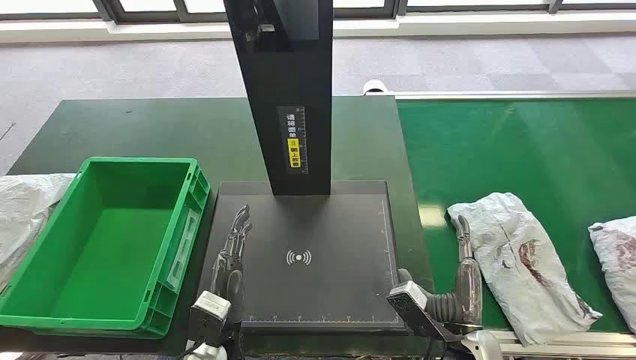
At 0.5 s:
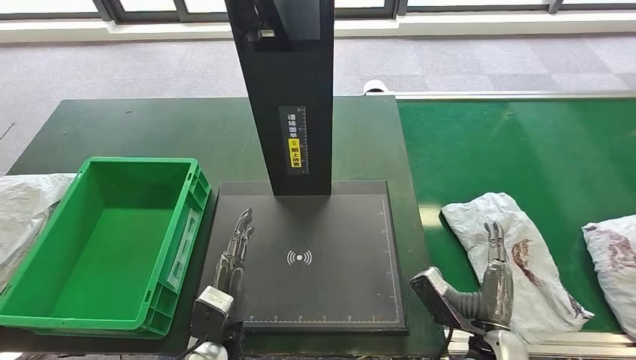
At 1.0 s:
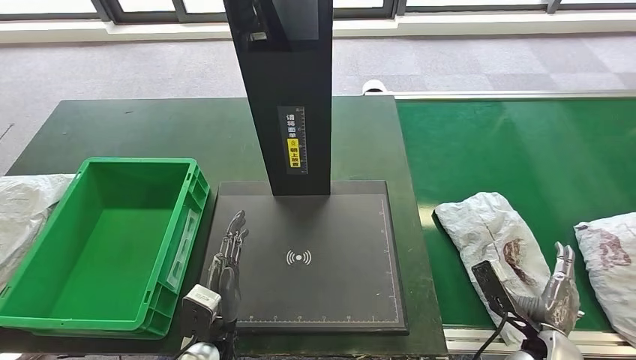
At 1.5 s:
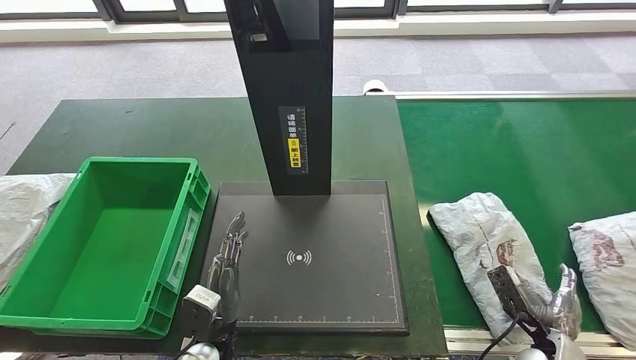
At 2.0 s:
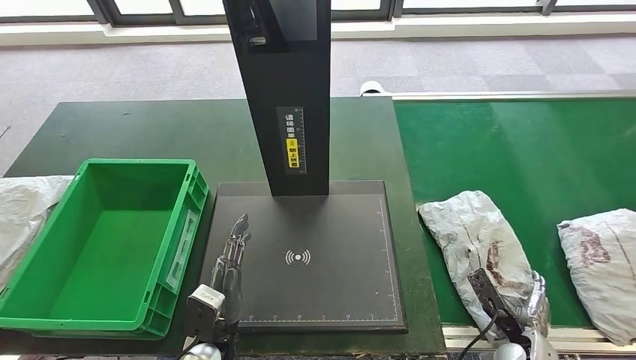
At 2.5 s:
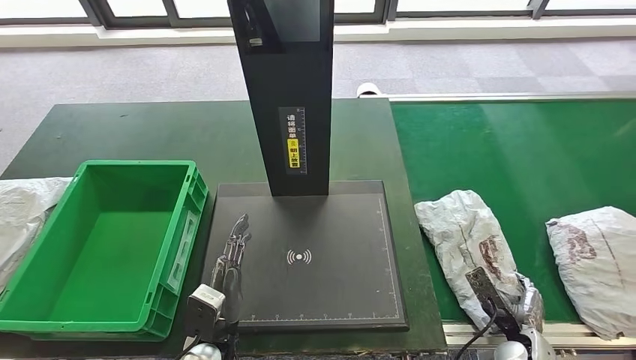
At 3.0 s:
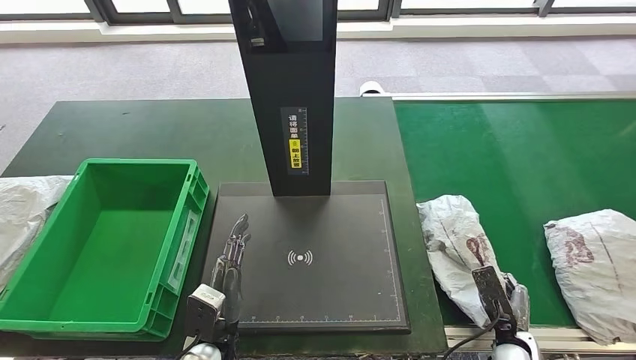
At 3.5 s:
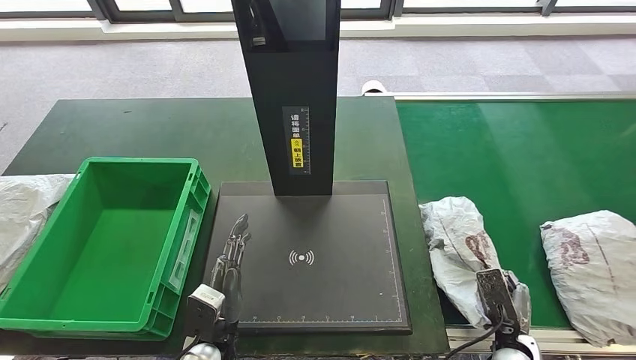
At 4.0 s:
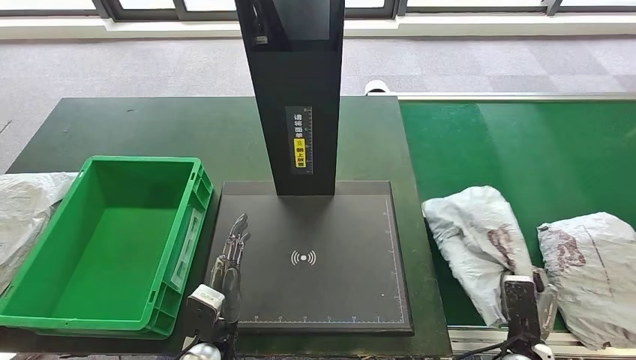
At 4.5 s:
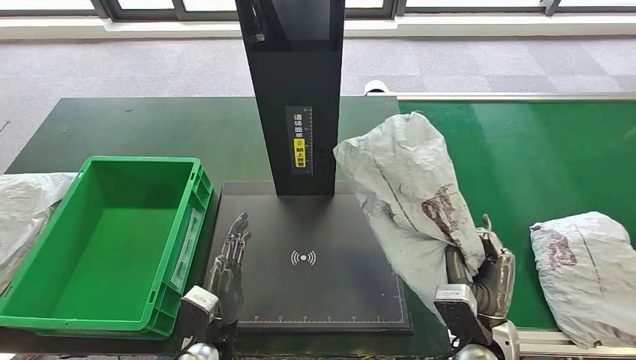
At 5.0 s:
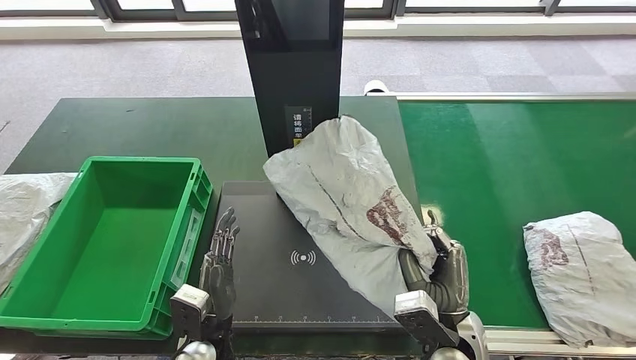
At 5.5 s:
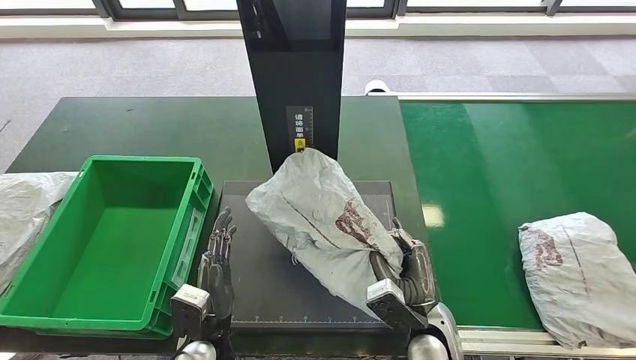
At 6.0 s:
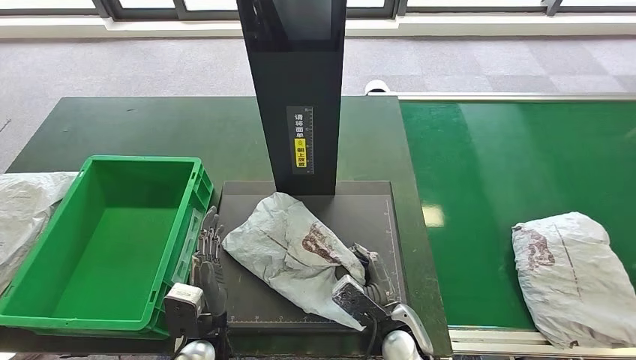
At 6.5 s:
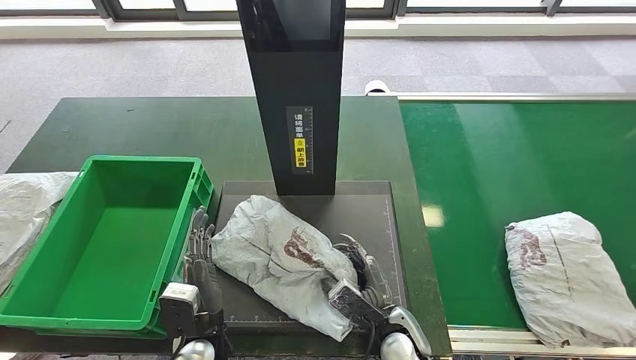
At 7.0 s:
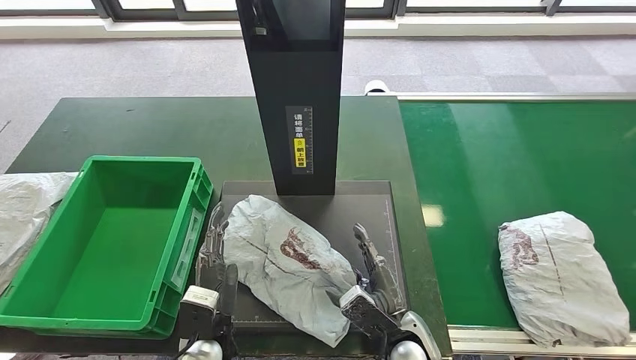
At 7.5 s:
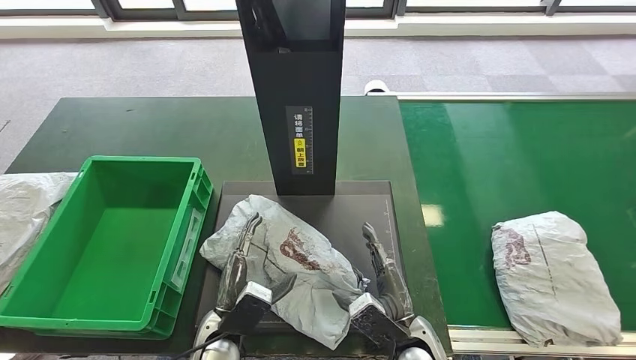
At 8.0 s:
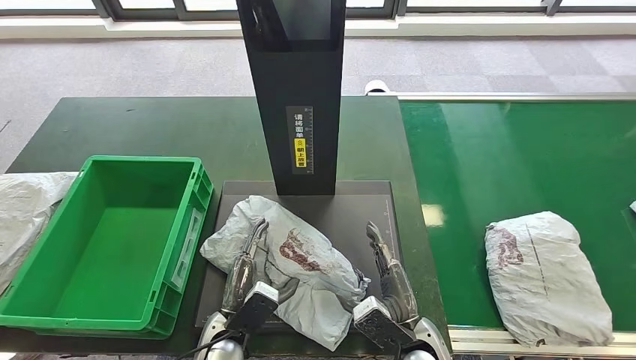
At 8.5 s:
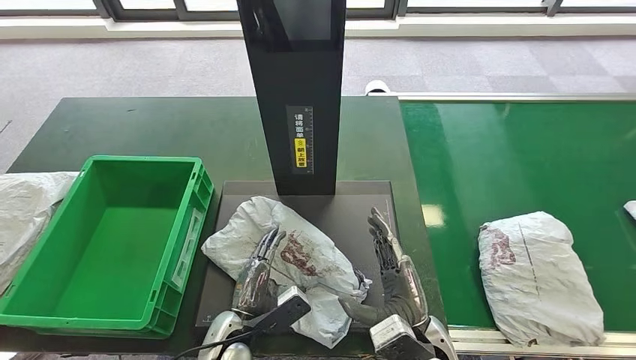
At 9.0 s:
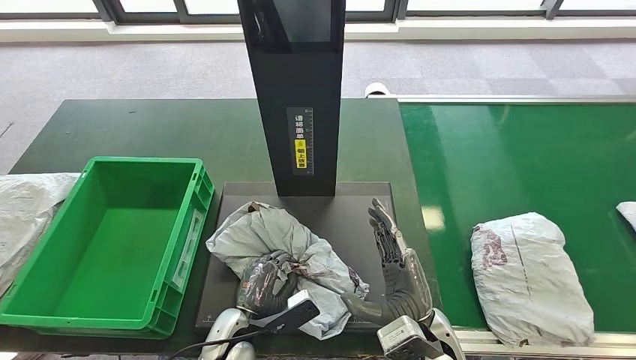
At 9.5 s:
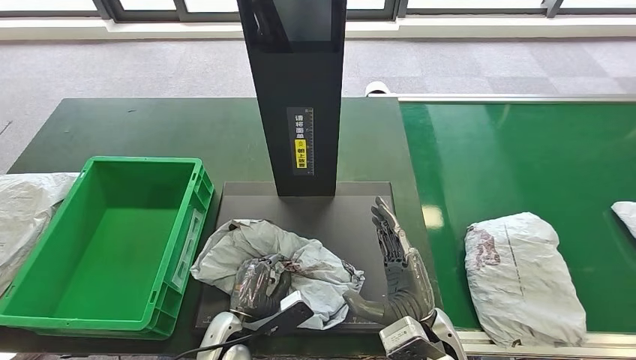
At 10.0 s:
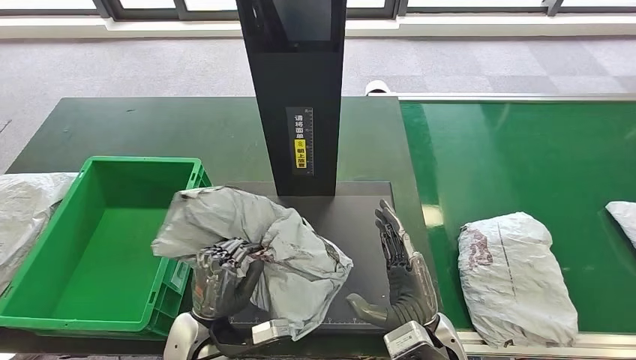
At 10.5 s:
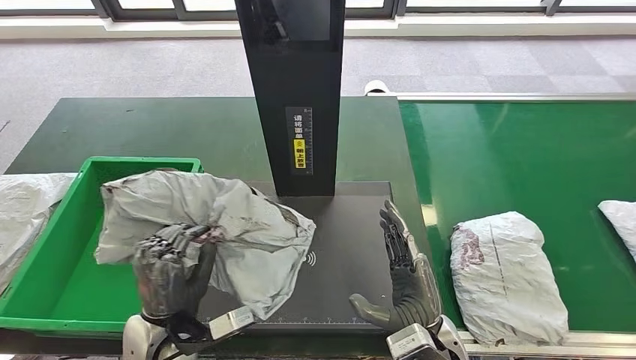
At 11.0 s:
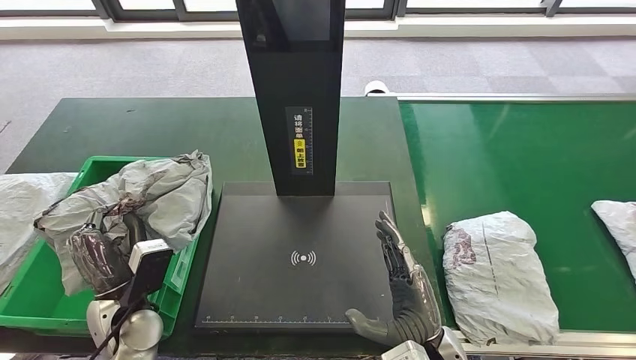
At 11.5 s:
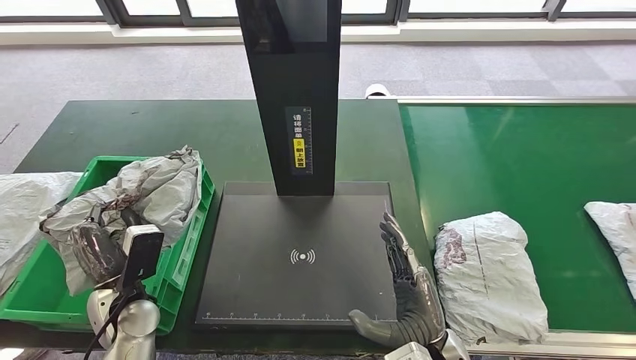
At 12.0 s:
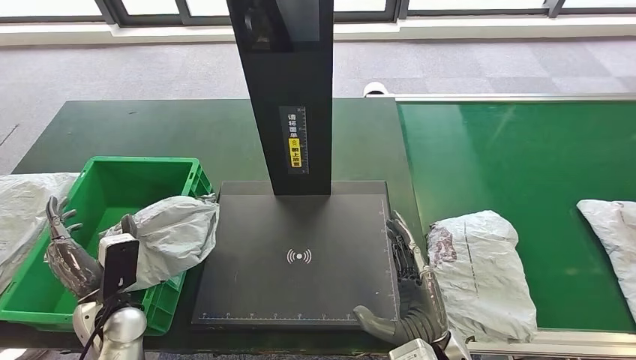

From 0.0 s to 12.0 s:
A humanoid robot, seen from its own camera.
Step, from 0.0 s to 5.0 s: Take the parcel off the conveyor belt.
Step, from 5.5 s to 7.5 s: Place the parcel onto the inbound machine.
Step, from 8.0 s to 11.0 s: Pick up the parcel from the inbound machine.
From 4.0 s to 6.0 s: The right hand travels to the left by some 20 cm.
From 8.0 s to 10.0 s: The right hand shifts about 5 cm upward.

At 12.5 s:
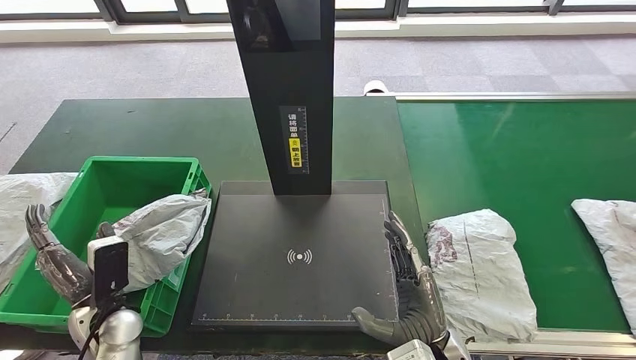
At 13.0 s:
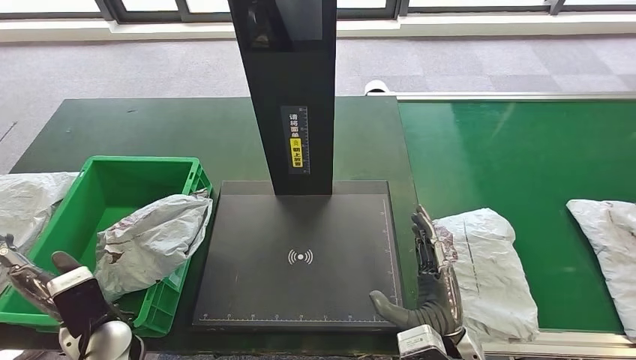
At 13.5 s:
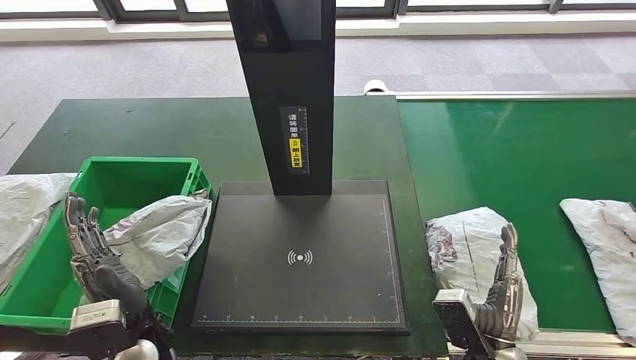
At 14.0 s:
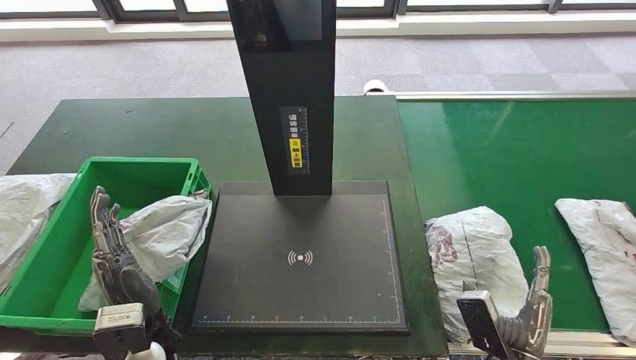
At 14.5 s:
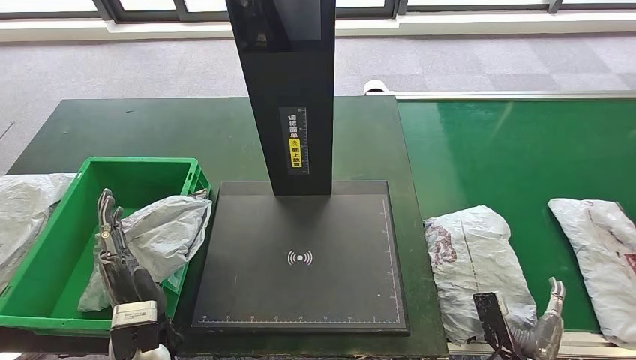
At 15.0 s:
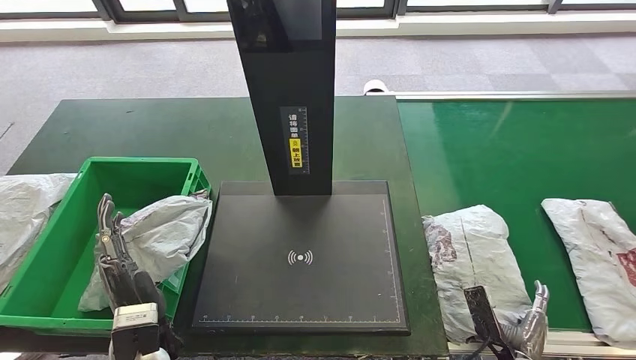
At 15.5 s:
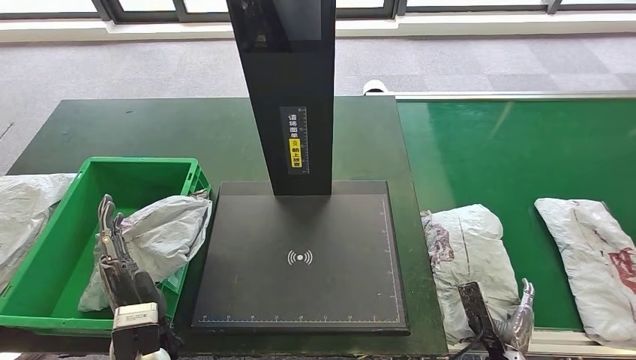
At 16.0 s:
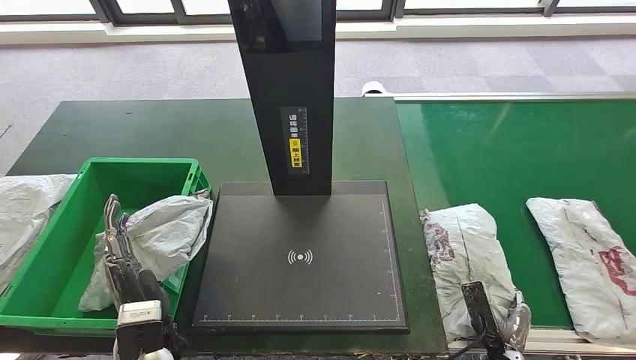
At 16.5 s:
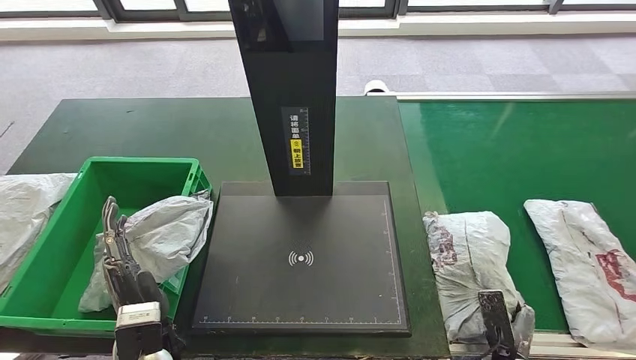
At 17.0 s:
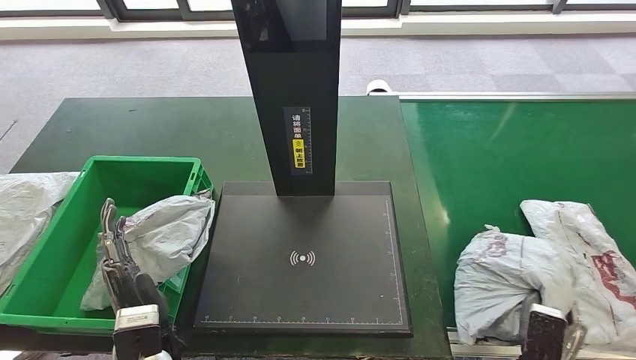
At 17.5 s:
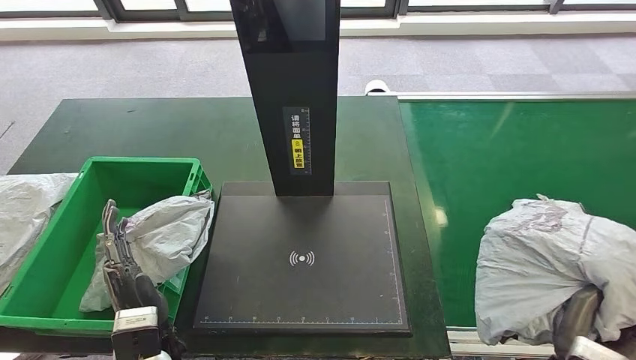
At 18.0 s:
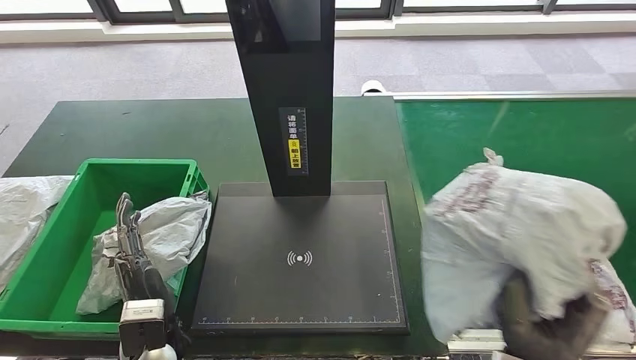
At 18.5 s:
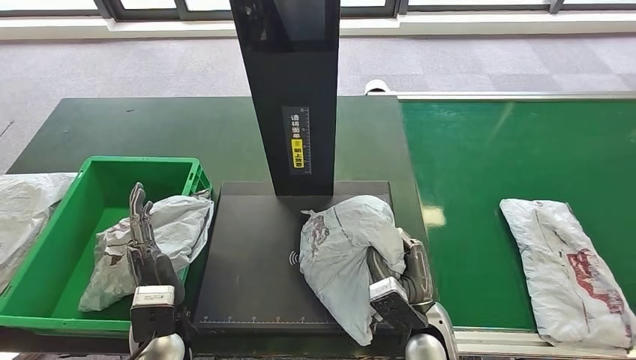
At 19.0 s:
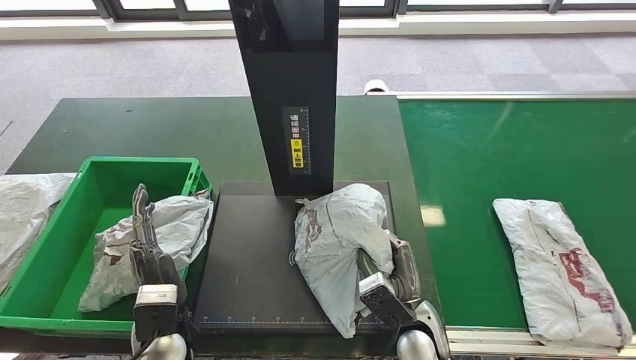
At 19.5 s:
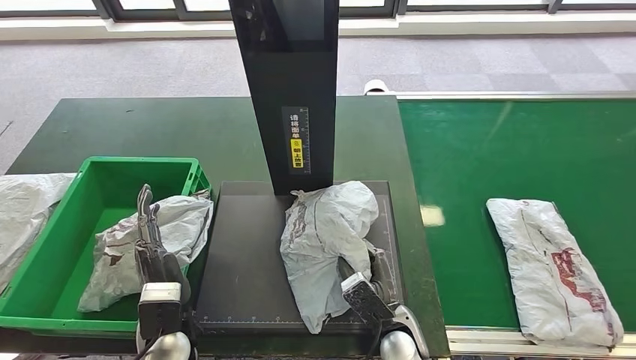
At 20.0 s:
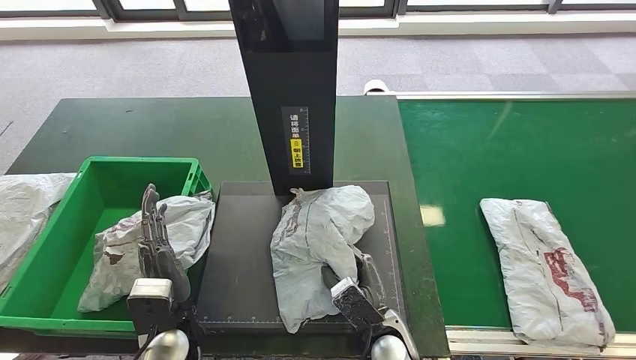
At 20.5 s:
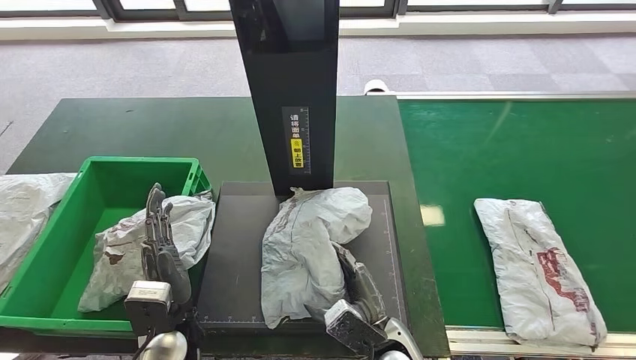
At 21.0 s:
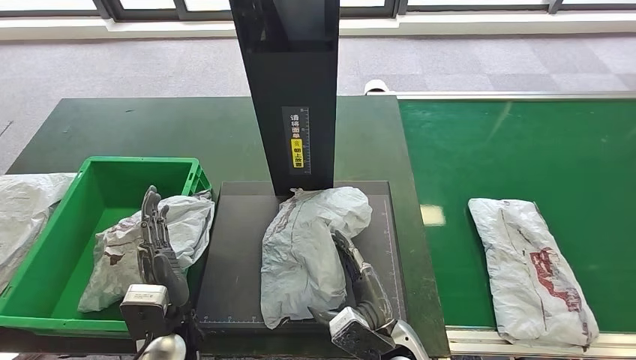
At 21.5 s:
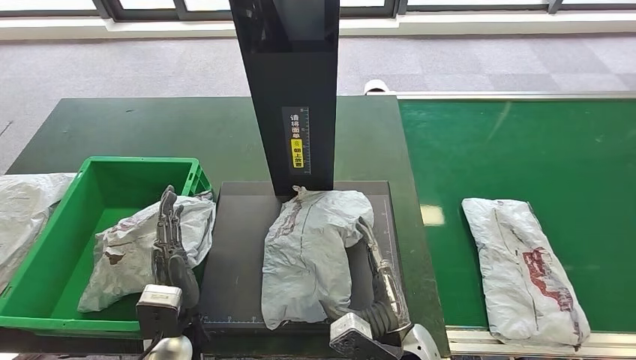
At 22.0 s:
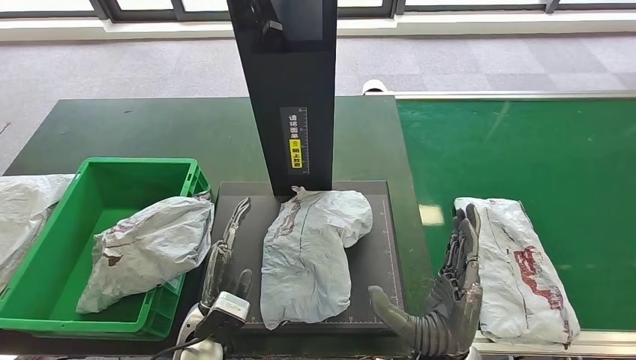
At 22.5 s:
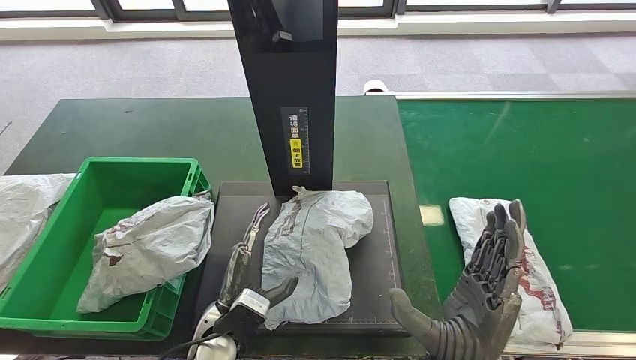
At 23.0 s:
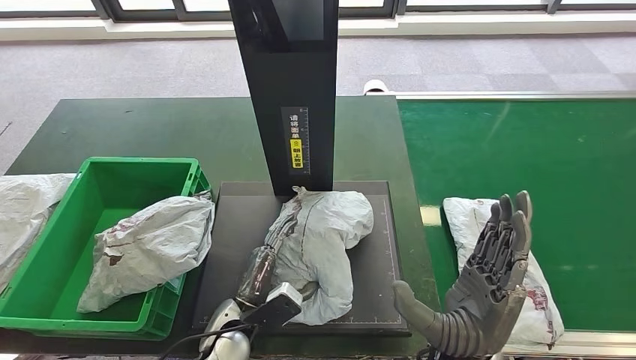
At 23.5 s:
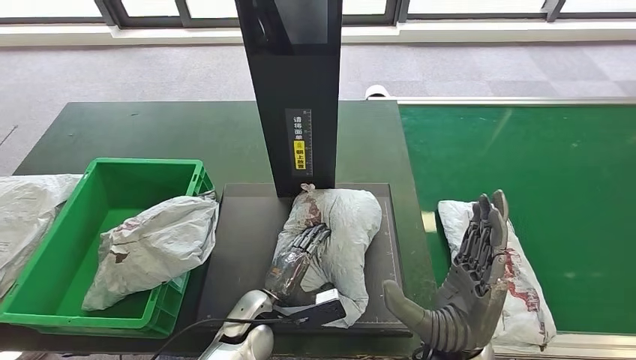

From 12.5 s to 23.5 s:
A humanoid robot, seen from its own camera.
Step, from 14.5 s to 17.5 s: Pick up the parcel from the conveyor belt.
Step, from 18.0 s to 21.5 s: Place the parcel onto the inbound machine.
From 12.5 s to 14.5 s: The right hand moves to the right and downward, roughly 20 cm; the left hand shifts approximately 10 cm to the right.
From 14.5 s to 16.0 s: The right hand ends up about 5 cm from where it was.
From 20.0 s to 21.5 s: The right hand travels upward by about 5 cm.
